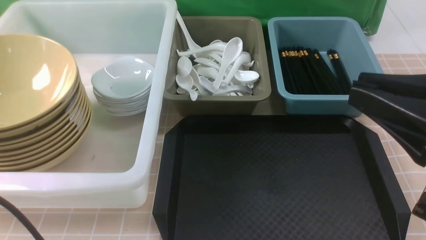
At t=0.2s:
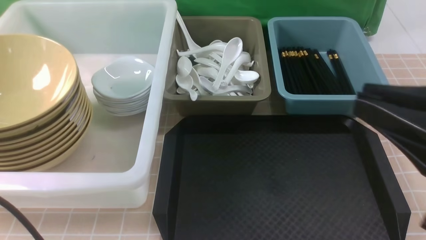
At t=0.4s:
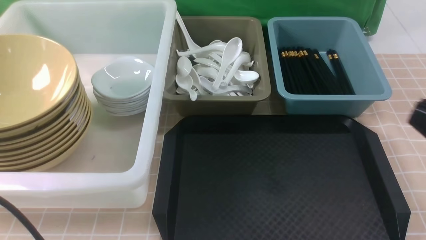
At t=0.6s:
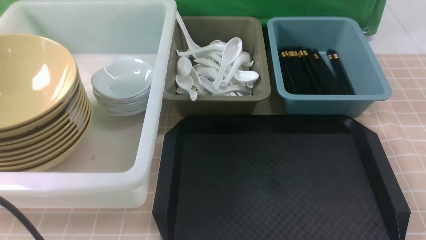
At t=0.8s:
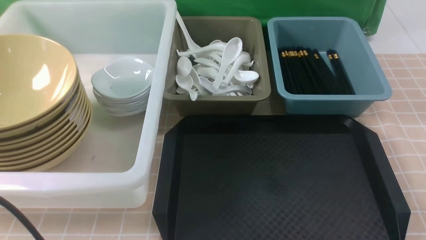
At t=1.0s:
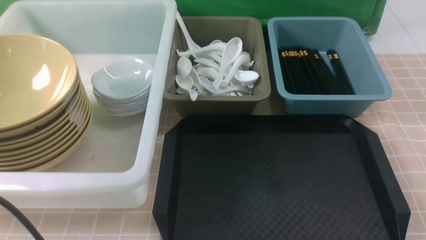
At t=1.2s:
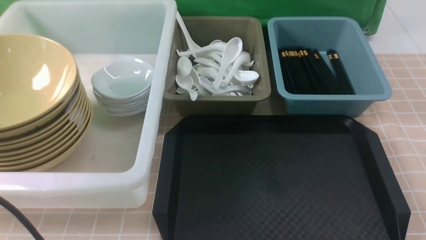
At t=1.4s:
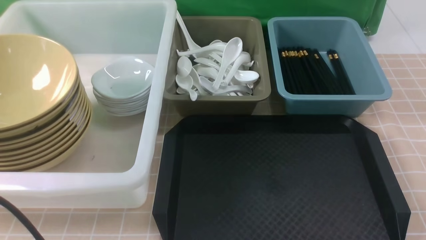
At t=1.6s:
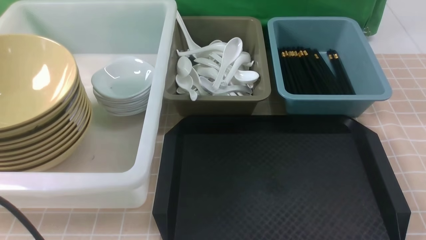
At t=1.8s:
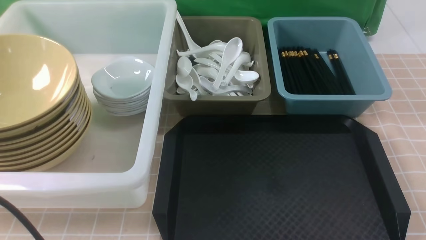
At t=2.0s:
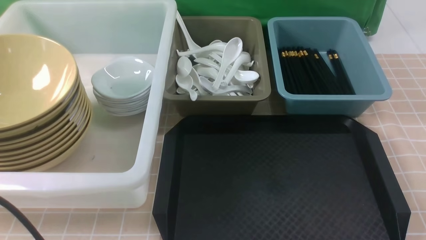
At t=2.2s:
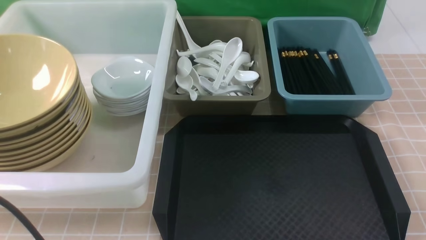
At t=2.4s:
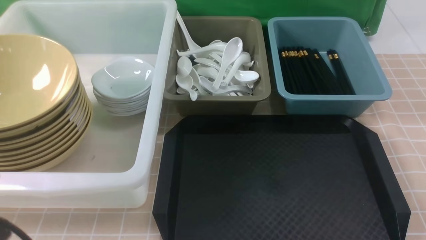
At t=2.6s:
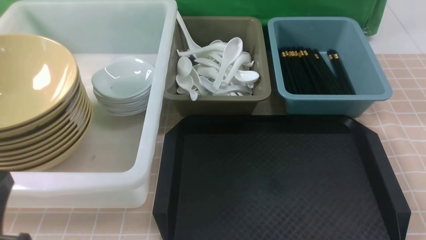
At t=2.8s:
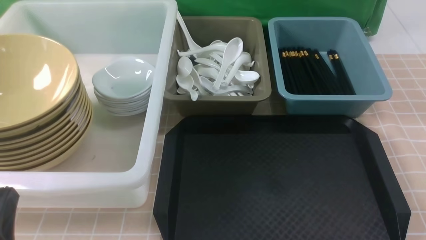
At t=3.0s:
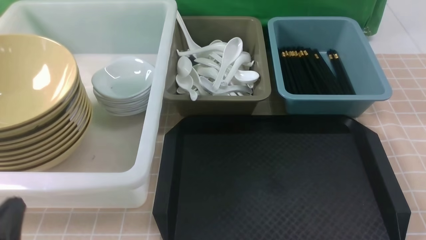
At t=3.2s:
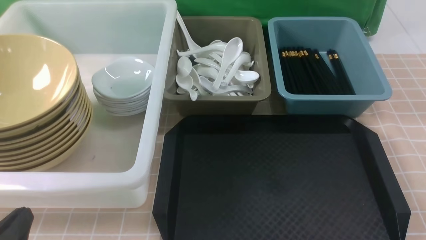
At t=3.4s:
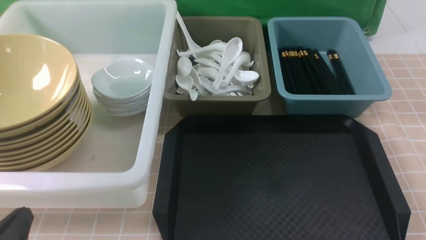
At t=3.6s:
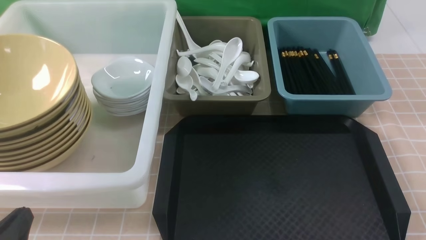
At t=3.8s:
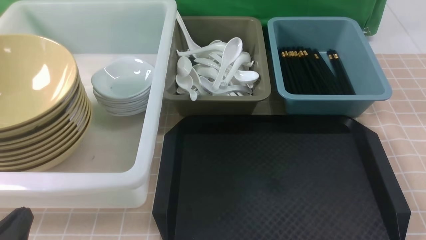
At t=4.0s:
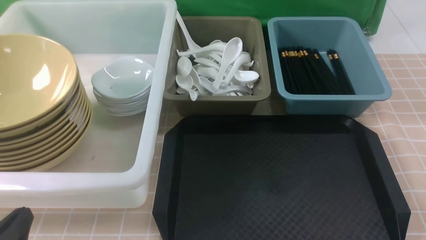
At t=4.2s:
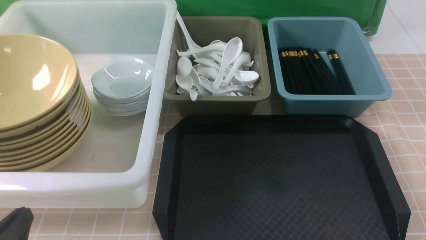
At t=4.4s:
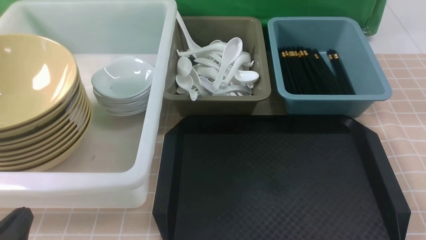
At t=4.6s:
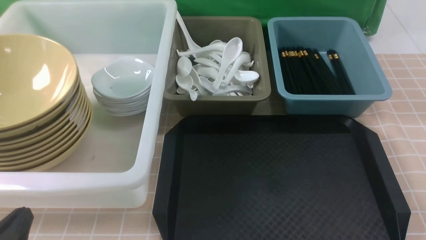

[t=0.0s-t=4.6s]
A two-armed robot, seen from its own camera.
Task of the whole recording: on brown table put chopsticks spoon bowls plates into blue grey white boxes.
t=0.0s to t=1.6s: The right gripper travels downward and to the right by some 25 cm.
t=1.6s to t=3.0s: The left gripper goes approximately 15 cm downward.

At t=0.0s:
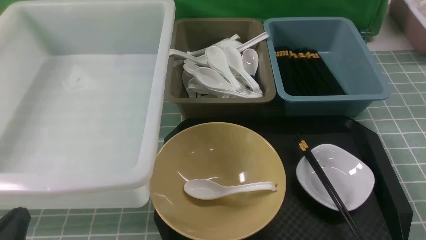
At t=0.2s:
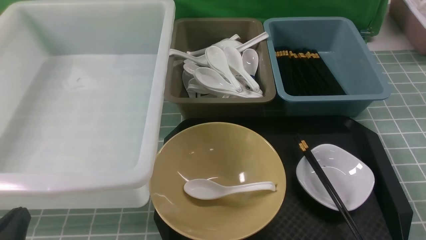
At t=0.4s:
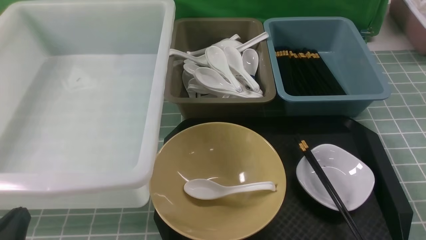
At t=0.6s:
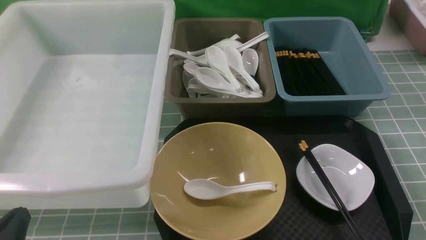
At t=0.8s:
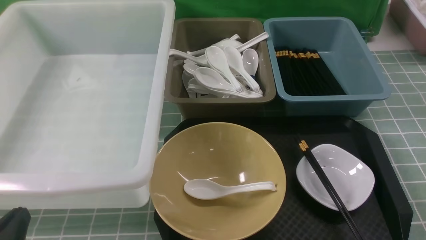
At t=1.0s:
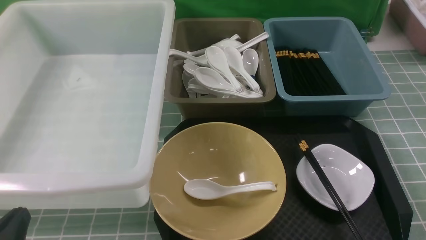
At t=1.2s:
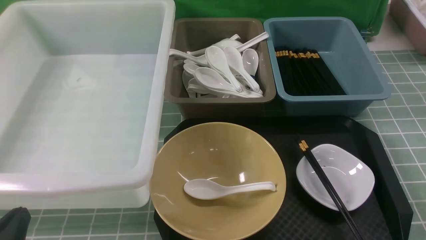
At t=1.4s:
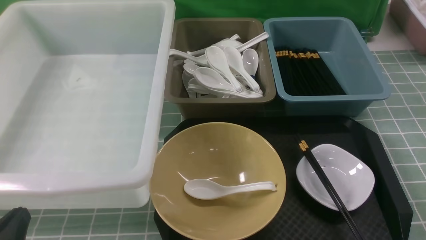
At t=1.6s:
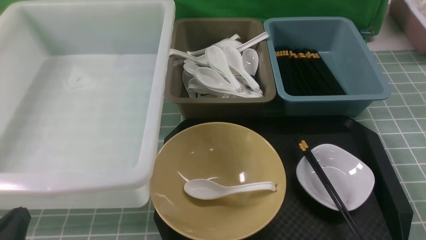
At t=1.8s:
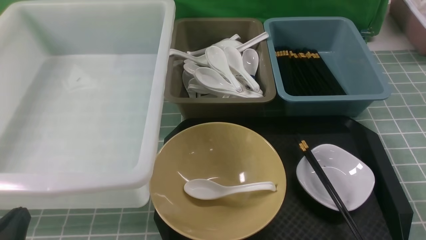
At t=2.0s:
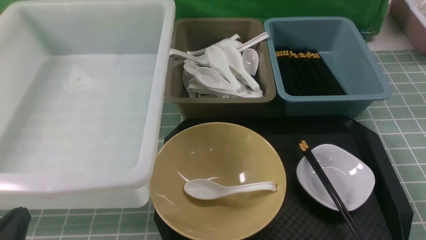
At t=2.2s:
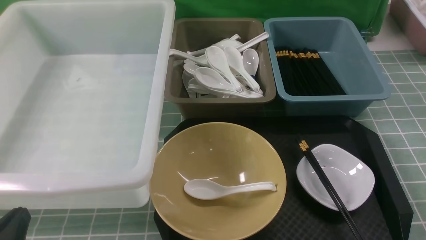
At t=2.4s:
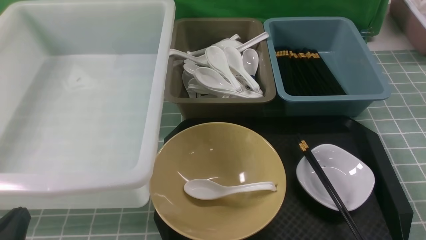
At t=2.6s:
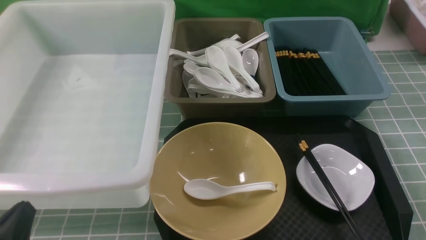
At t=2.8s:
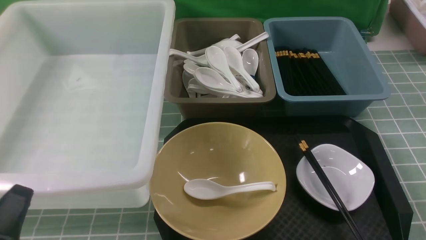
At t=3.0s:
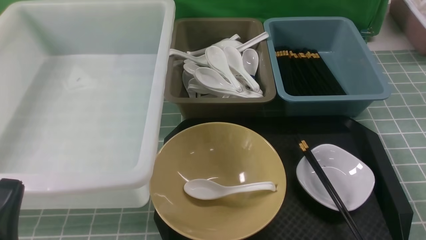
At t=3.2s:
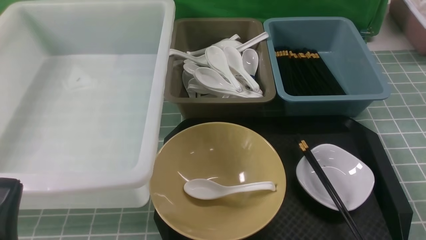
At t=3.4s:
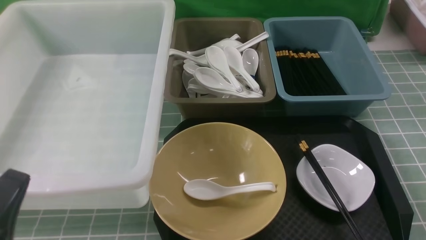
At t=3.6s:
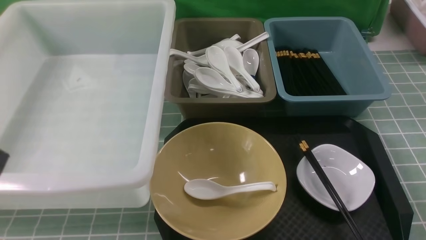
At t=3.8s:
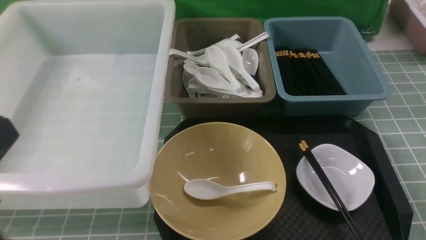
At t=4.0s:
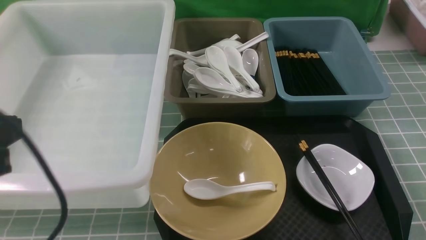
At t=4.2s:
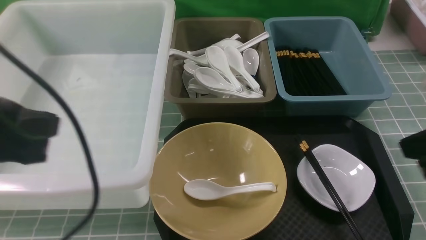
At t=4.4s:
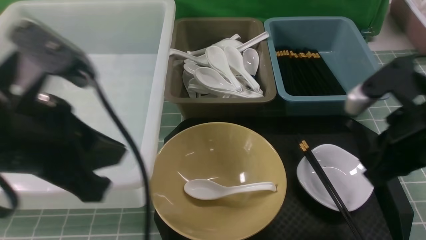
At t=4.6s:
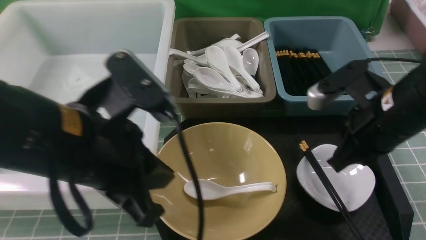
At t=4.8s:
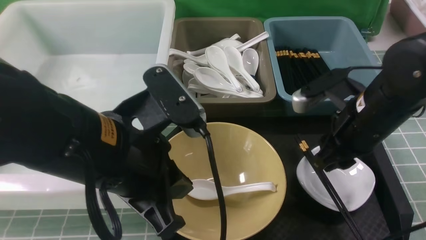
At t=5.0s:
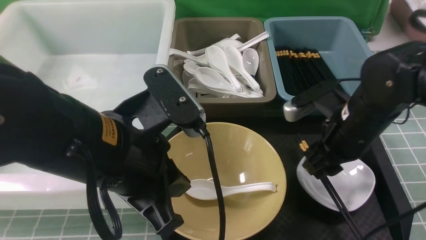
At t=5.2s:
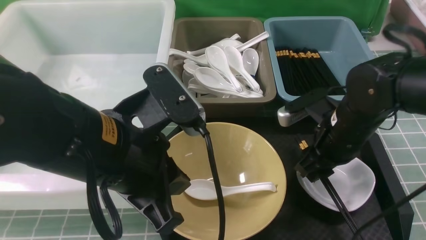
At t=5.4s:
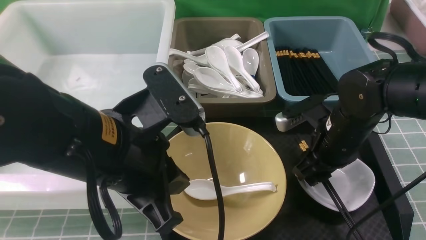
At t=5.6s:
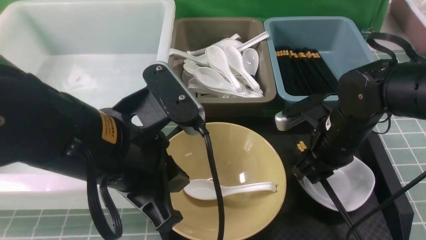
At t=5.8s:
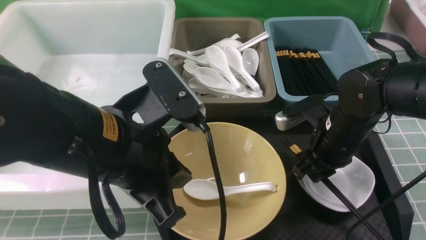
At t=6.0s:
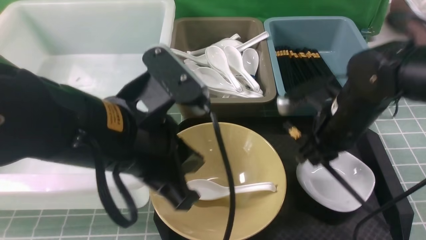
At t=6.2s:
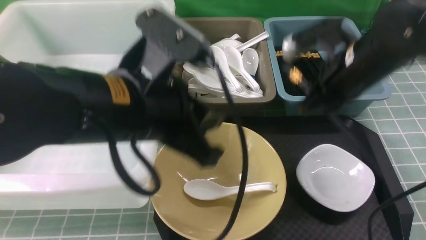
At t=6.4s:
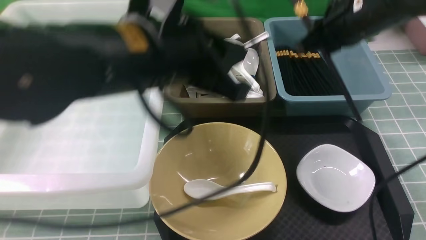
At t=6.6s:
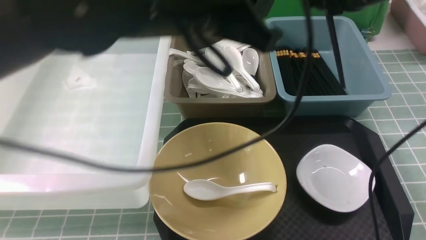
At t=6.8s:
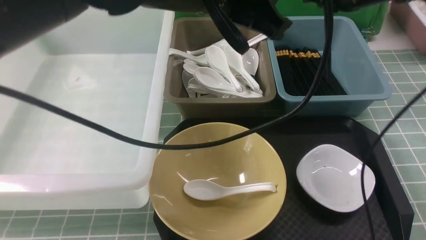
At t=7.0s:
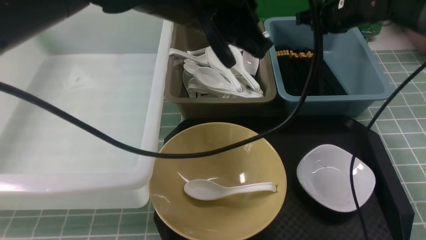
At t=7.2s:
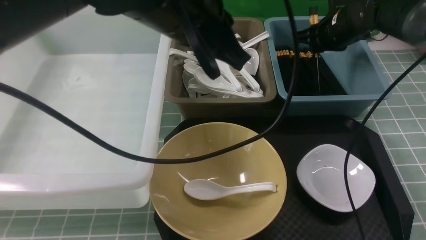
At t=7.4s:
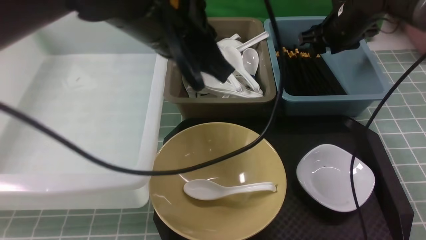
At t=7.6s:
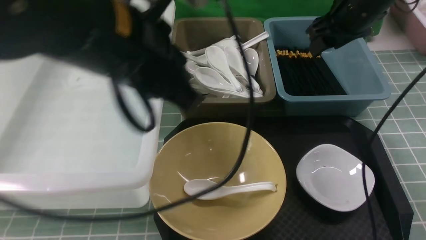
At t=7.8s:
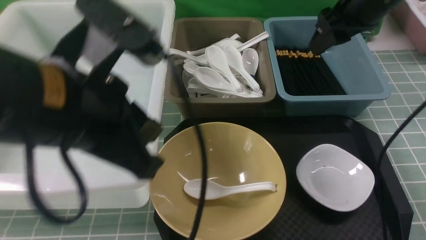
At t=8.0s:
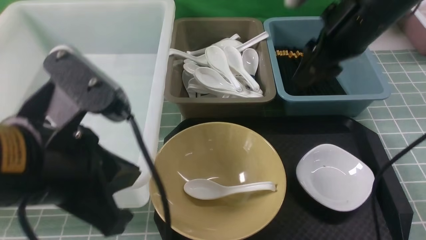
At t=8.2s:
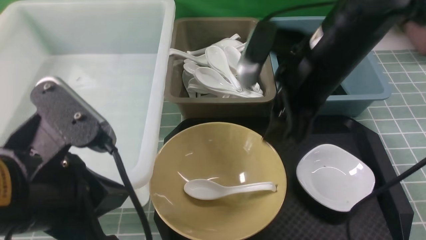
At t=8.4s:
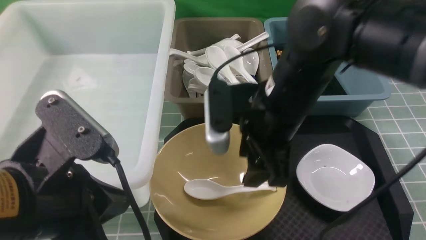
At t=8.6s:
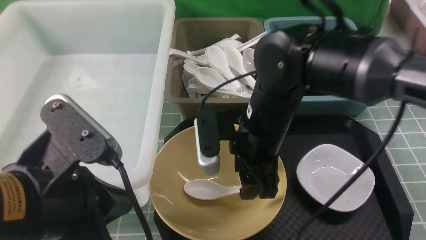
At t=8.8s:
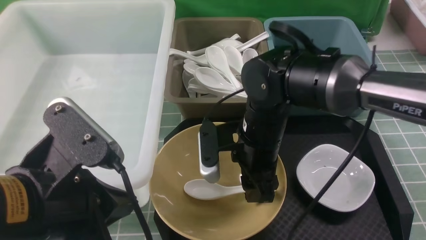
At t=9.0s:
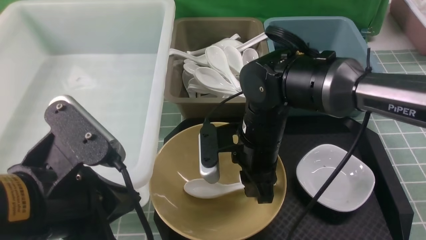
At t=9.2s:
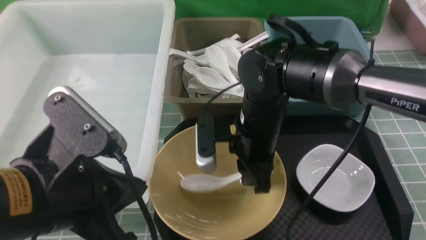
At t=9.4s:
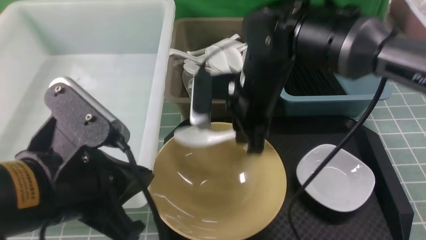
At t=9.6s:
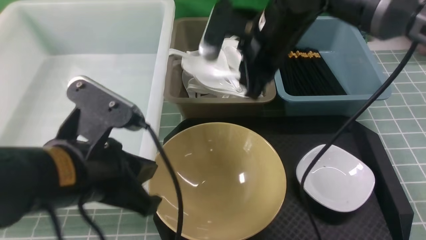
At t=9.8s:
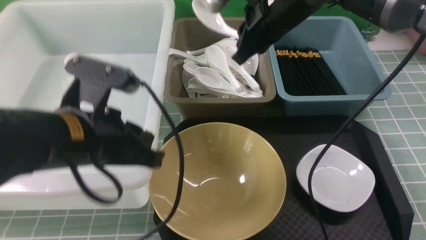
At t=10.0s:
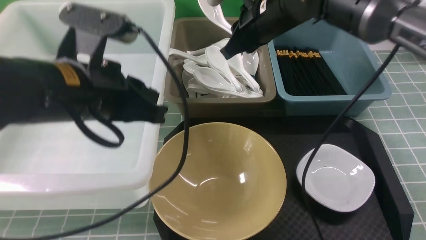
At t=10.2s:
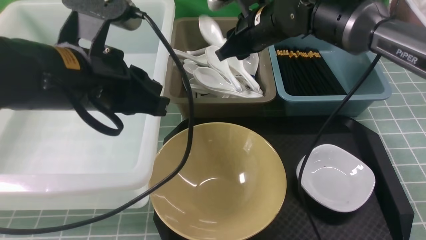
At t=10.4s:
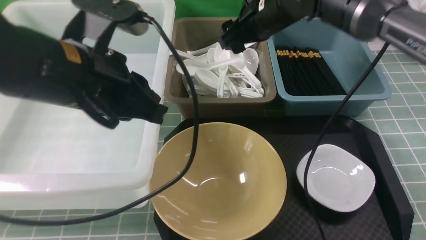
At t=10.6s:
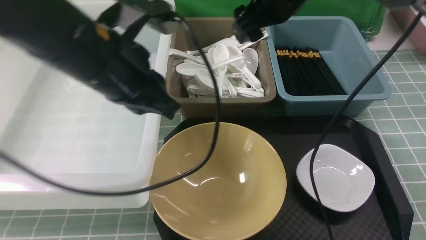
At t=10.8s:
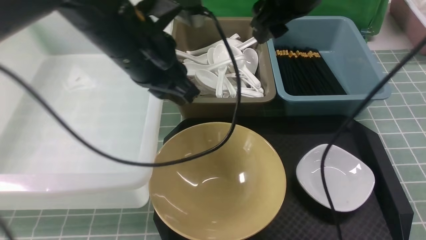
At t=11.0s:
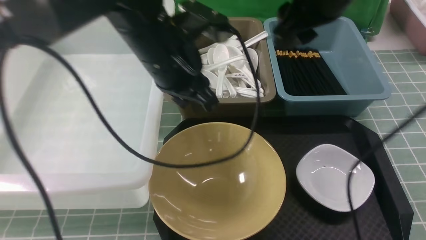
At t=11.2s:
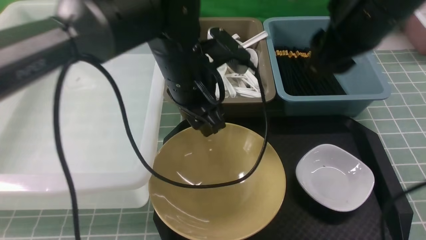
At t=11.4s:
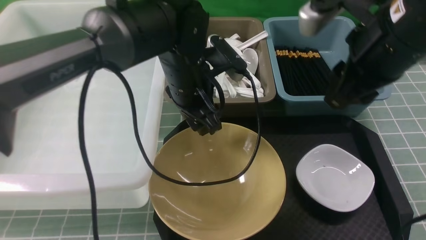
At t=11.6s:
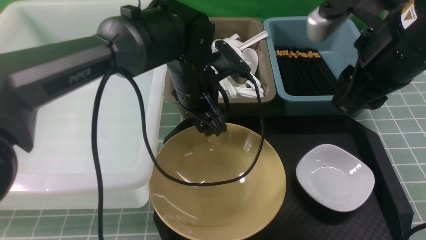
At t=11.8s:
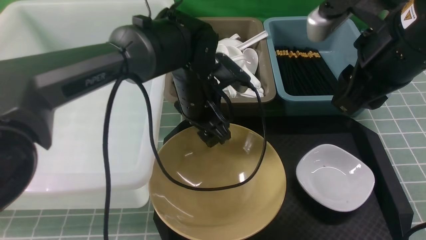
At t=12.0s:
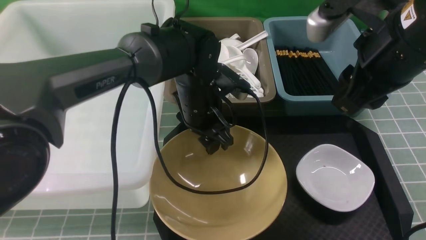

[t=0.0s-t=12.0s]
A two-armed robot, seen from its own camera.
Task of the whole recording: on blue table put chopsticks spoon bowls plates into blue grey white boxes.
Step, t=0.0s to t=6.0s: use the right arm to grab the chopsticks.
Step, t=6.2s to t=7.6s: use the right arm to put the chopsticks into the small storage box on the right.
Step, t=7.8s to t=9.4s: use the right arm to grab the soup spoon in the middle.
Step, t=9.6s to t=10.4s: use the right arm to put the soup spoon into the small storage box in the middle.
t=0.0s to t=1.6s: The two grippers keep their place.
t=3.0s to t=4.4s: The left gripper travels upward, forward and to the right by some 20 cm. Meanwhile the right gripper goes roughly 20 cm forward, upward and to the left, and closes.
t=4.4s to t=6.0s: The left gripper is displaced to the right by approximately 10 cm. The right gripper shifts roughly 10 cm forward, downward and to the left, and opens, then closes once more.
t=6.0s to t=7.6s: The right gripper heads forward and upward, covering roughly 15 cm, and opens. Meanwhile the left gripper shifts about 5 cm upward, and moves approximately 10 cm forward and comes back.
t=7.6s to t=9.0s: The left gripper moves downward, backward and to the left, about 15 cm. The right gripper goes roughly 25 cm to the left, backward and downward, and closes.
t=9.0s to t=10.4s: The right gripper shifts roughly 15 cm forward and upward, and opens up. Meanwhile the left gripper moves forward, approximately 10 cm.
t=10.4s to t=12.0s: The right gripper goes roughly 20 cm backward and to the right, and closes its fingers, while the left gripper moves downward, forward and to the right, approximately 20 cm, and opens.
